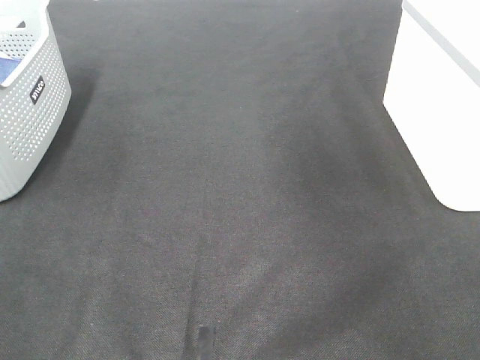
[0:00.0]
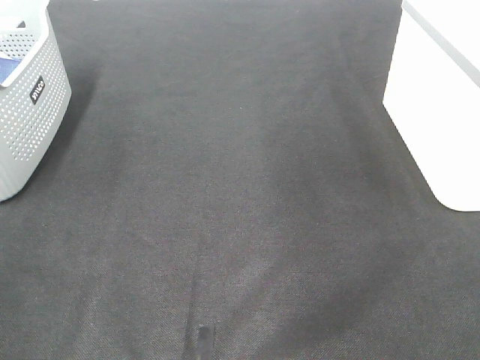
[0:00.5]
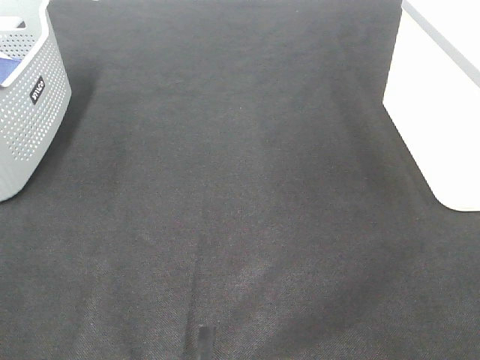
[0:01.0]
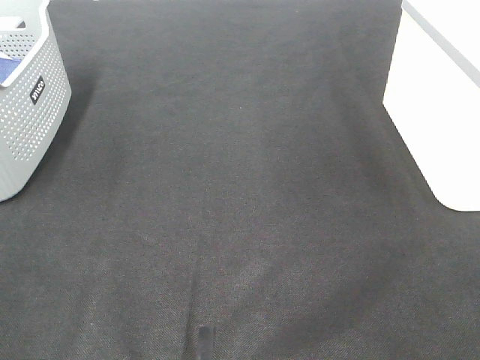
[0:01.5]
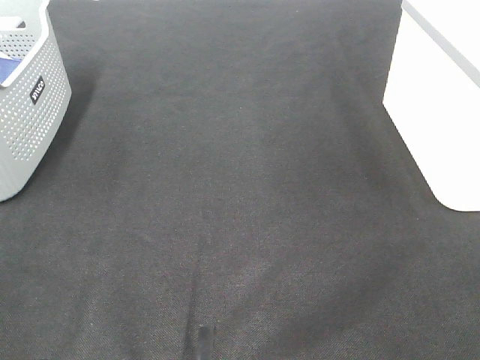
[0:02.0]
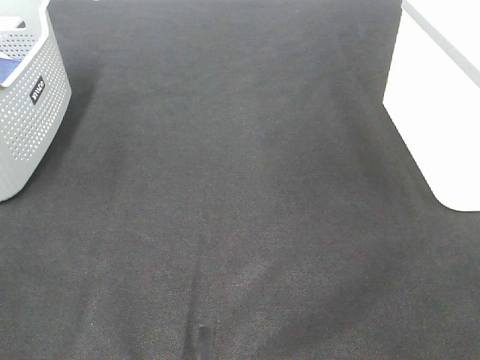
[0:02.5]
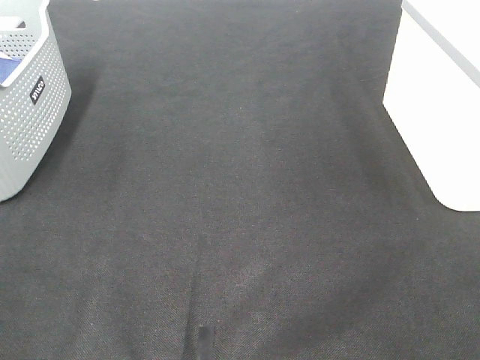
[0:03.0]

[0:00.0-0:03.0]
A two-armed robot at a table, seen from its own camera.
0:01.5 to 0:03.0: Neither gripper changes place.

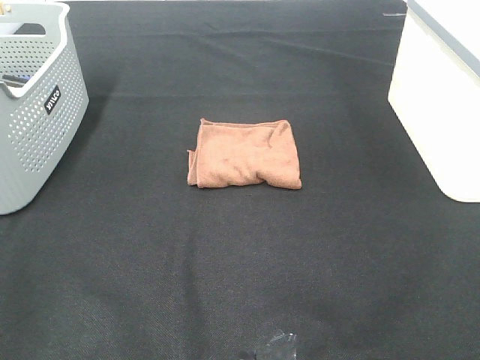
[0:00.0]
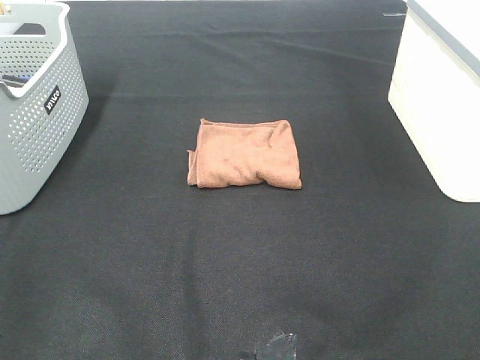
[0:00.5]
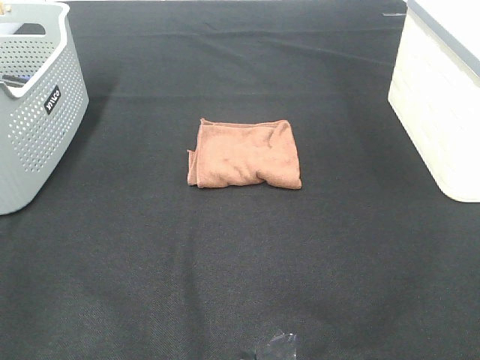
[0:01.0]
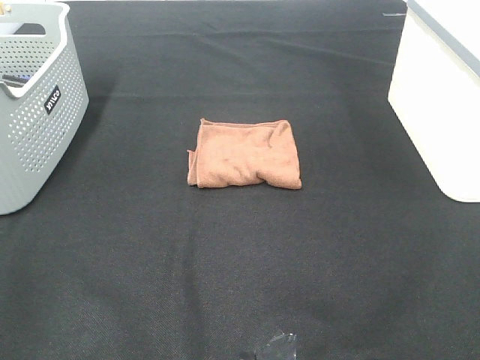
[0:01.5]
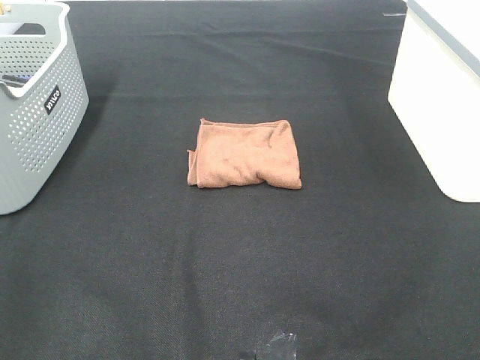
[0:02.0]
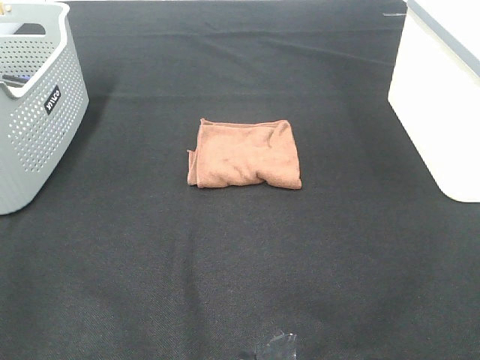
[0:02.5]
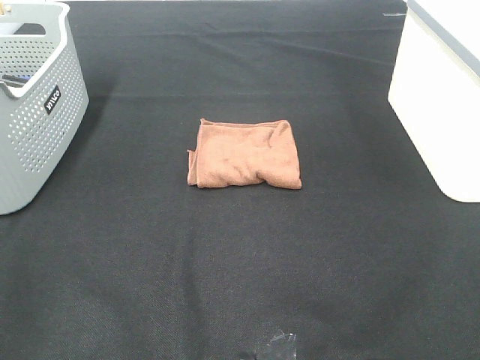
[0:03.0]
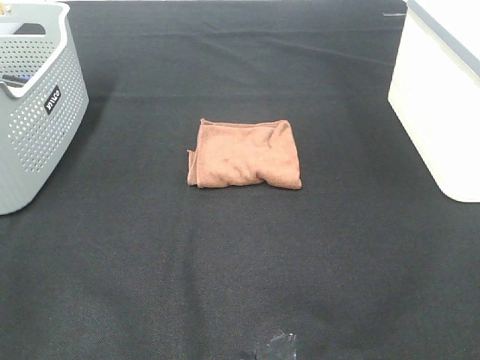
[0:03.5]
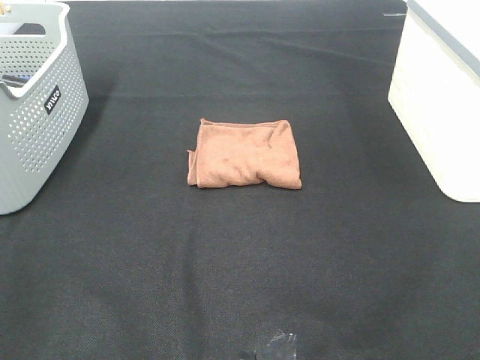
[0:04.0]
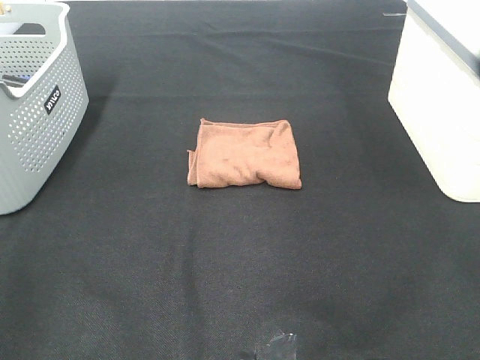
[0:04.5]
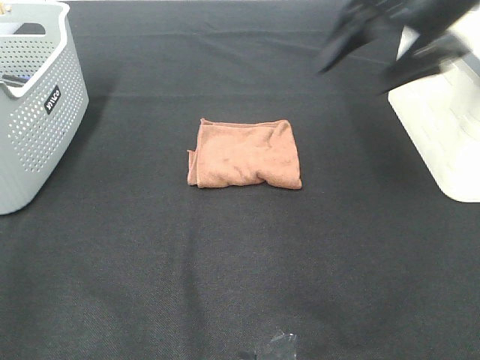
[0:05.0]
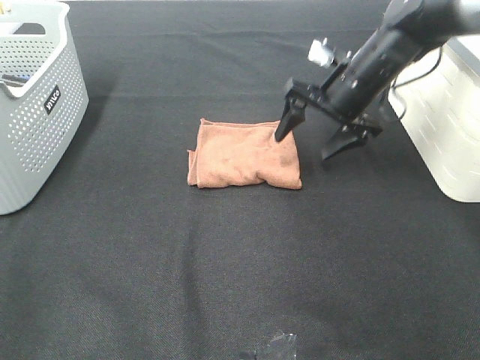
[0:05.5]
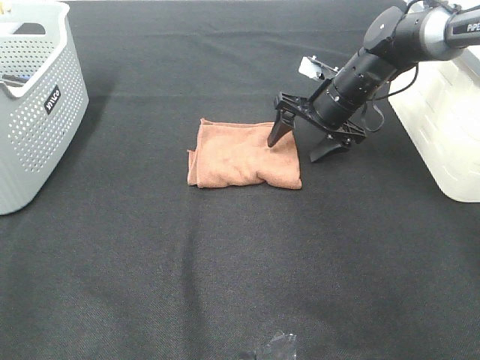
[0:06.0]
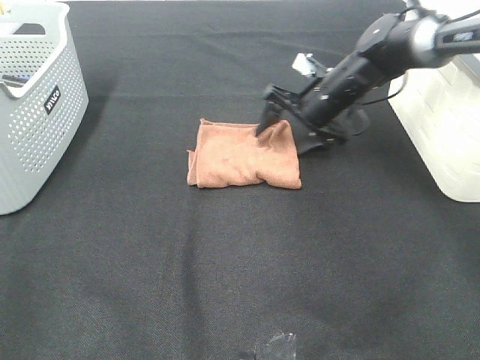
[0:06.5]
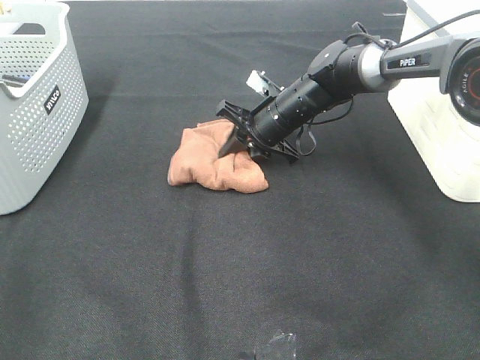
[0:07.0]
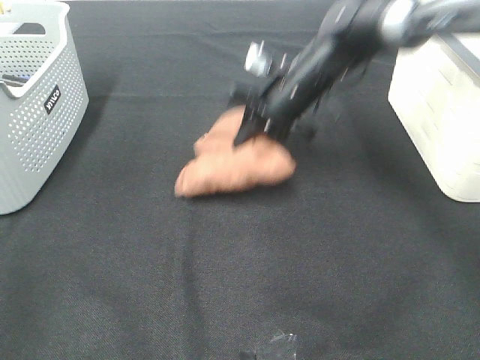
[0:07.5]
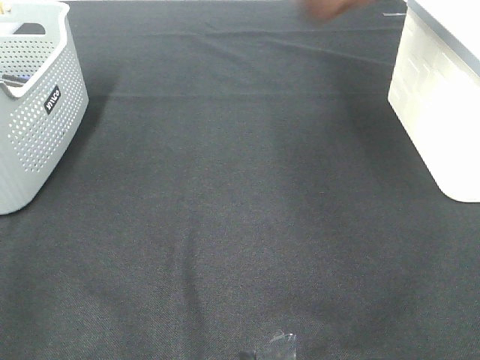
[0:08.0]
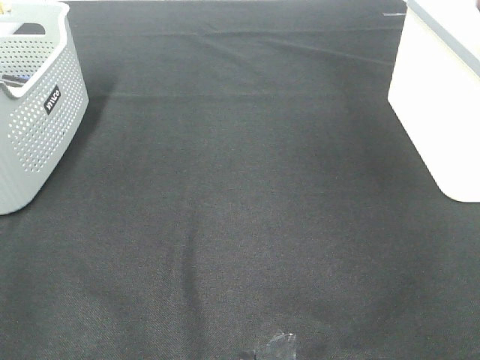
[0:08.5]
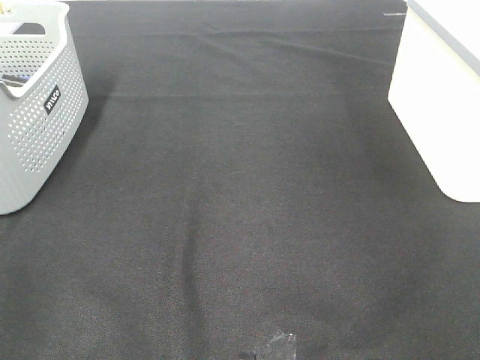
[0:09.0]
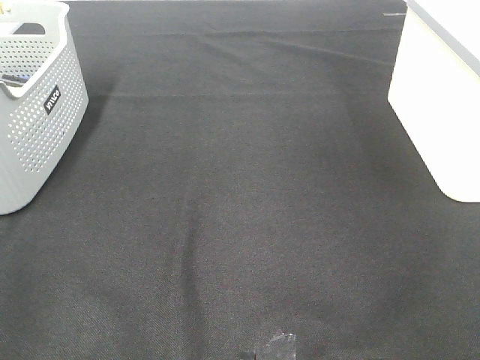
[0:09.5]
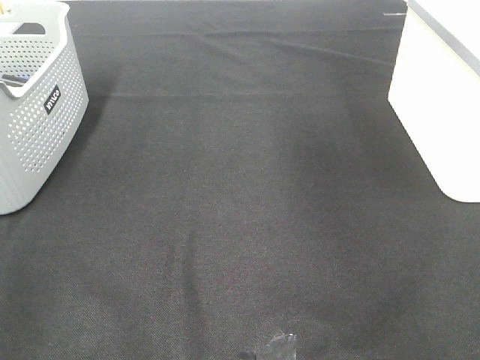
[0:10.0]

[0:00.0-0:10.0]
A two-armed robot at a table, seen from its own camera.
Step, 0:00.0 to 0:07.0: Right hand: grab the folded brown towel.
Step, 0:07.5 to 0:09.0: Right hand: place the brown towel in right basket.
0:00.0 to 0:02.0: Both grippers stay put.
0:04.0 to 0:06.0: The right gripper moves forward and downward, some 50 cm.
0:06.0 to 0:08.0: The right gripper moves upward and to the right, some 30 cm, and closes its fingers.
0:08.0 to 0:10.0: The right gripper reaches about 20 cm to the right, then returns, and opens its fingers.

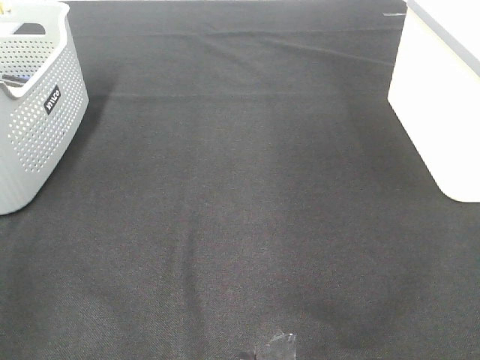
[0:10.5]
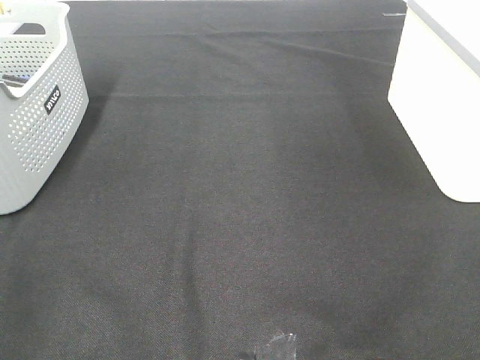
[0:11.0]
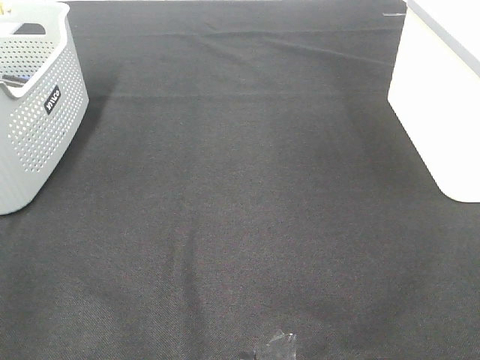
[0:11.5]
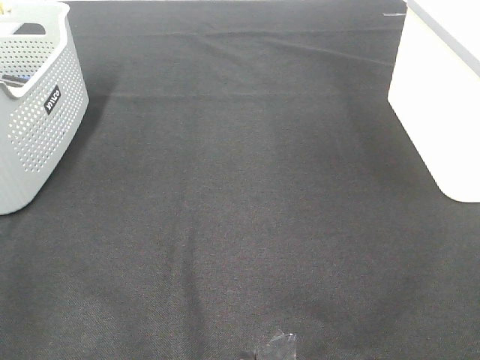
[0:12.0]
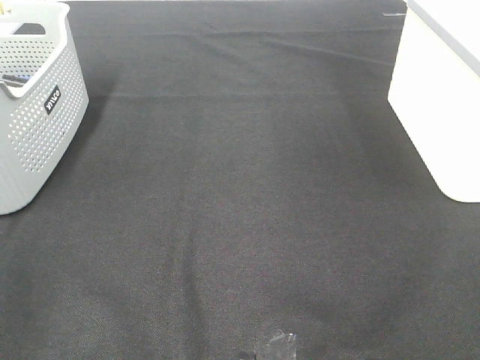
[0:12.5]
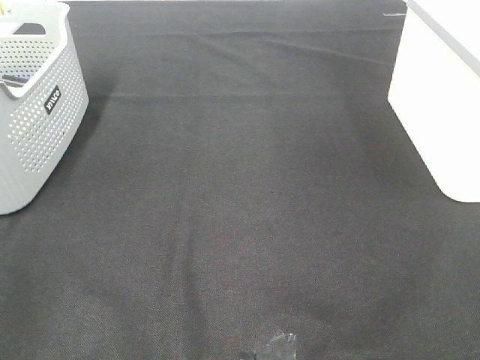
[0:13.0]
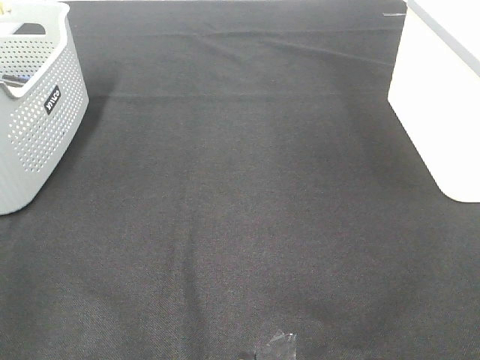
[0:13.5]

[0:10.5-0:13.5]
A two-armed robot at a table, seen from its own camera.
0:12.0 to 0:13.5: The two grippers keep their place.

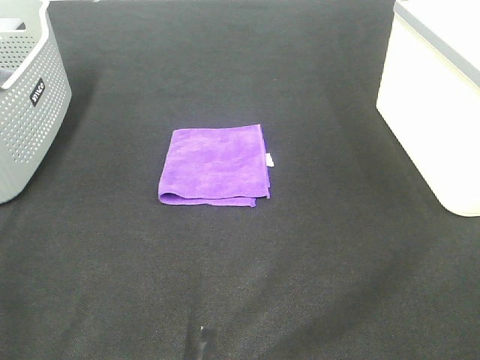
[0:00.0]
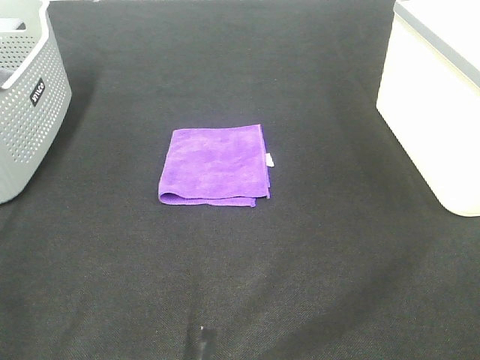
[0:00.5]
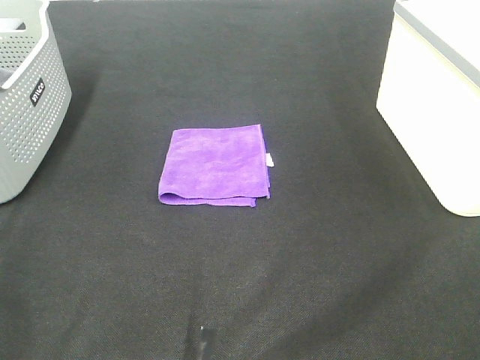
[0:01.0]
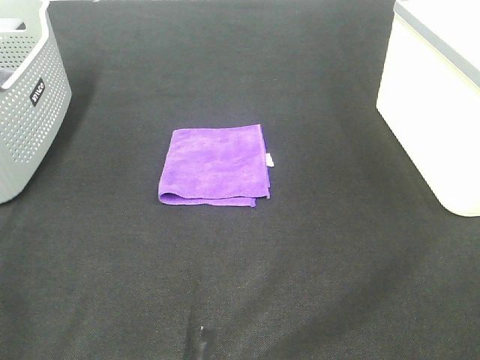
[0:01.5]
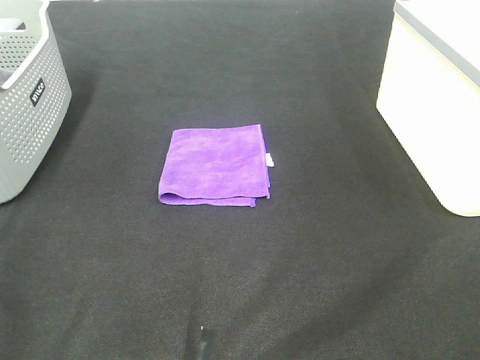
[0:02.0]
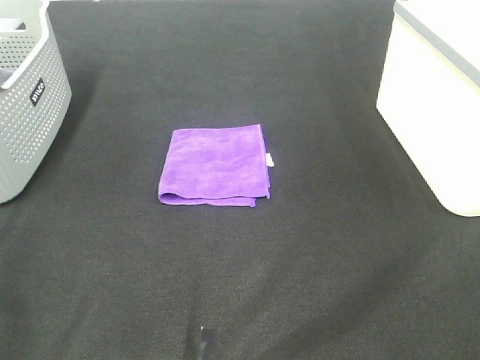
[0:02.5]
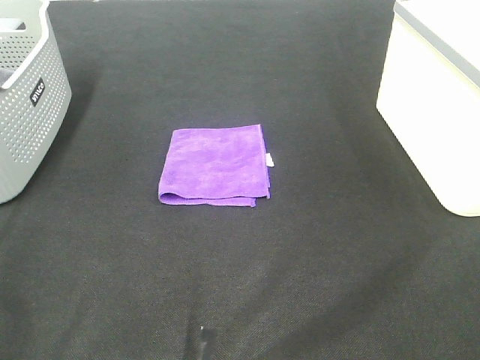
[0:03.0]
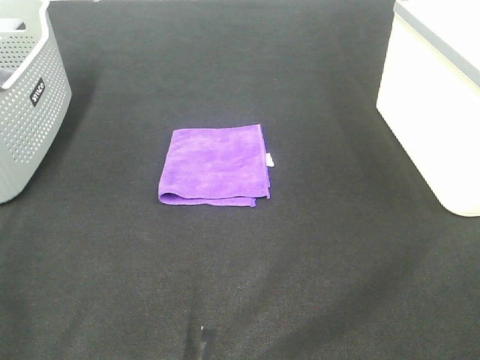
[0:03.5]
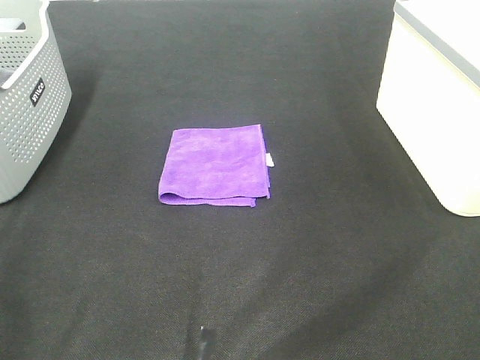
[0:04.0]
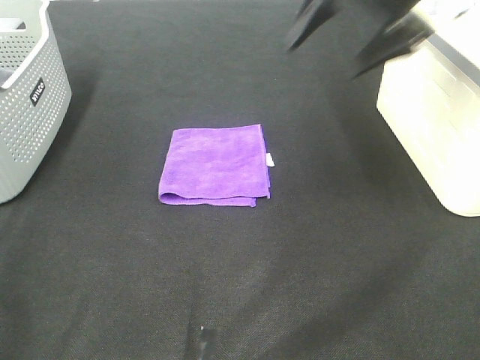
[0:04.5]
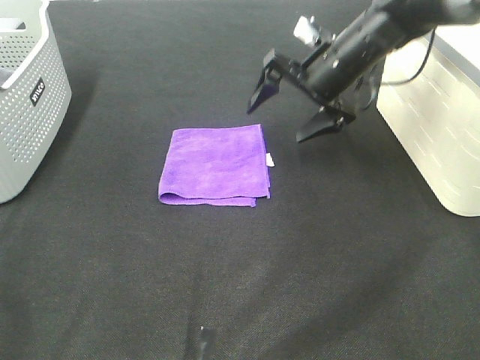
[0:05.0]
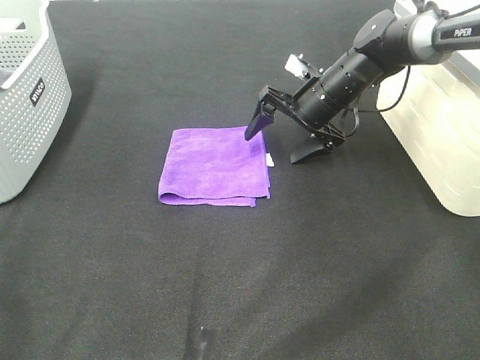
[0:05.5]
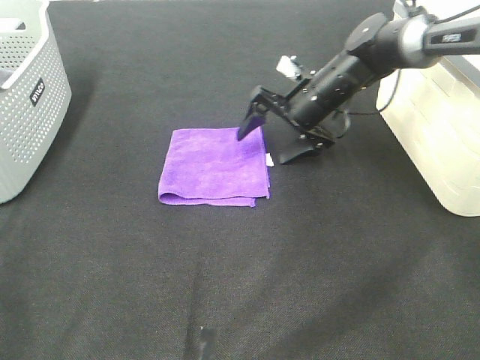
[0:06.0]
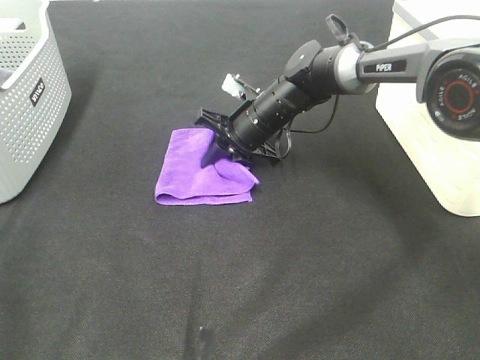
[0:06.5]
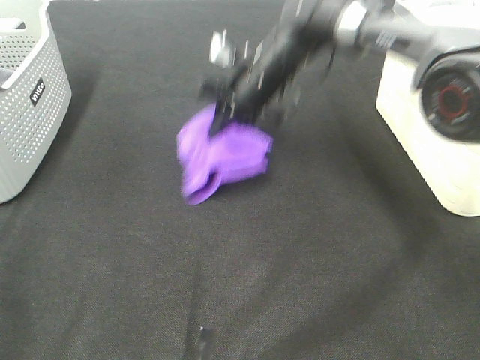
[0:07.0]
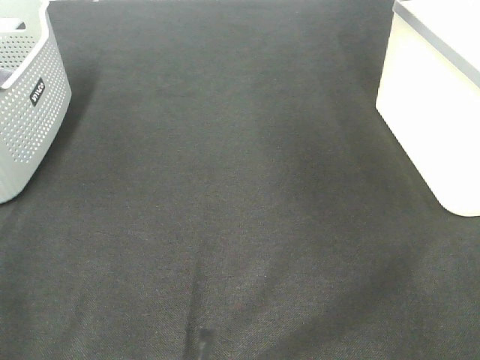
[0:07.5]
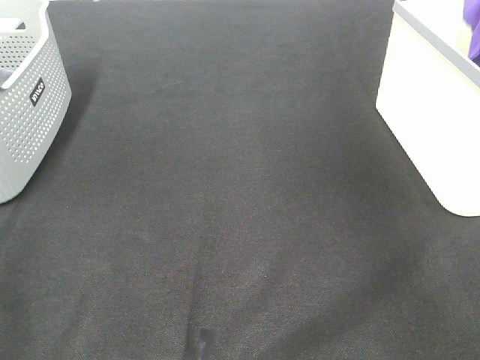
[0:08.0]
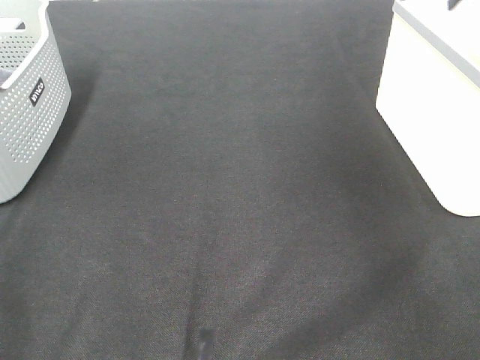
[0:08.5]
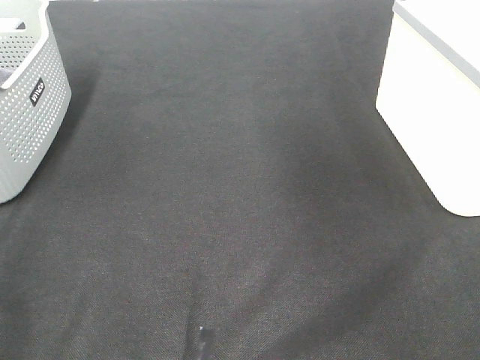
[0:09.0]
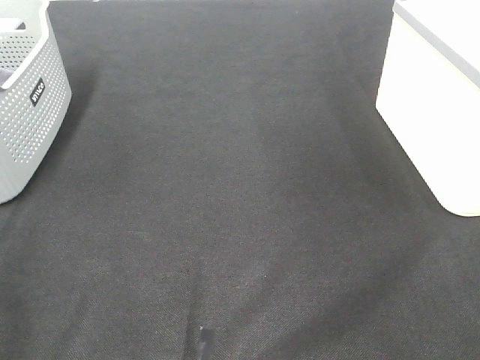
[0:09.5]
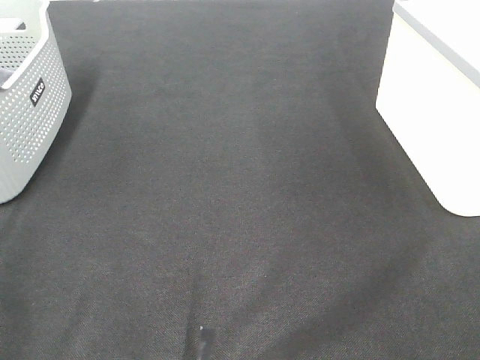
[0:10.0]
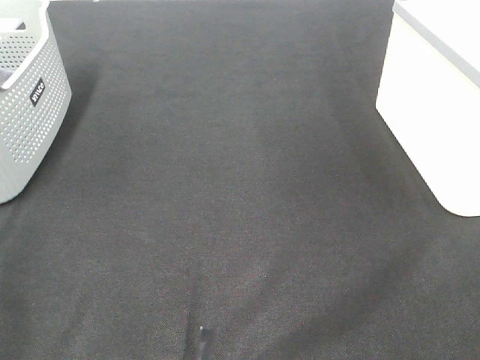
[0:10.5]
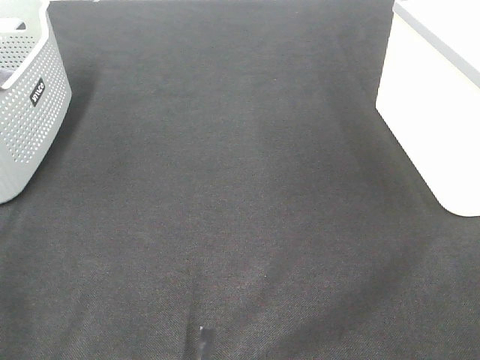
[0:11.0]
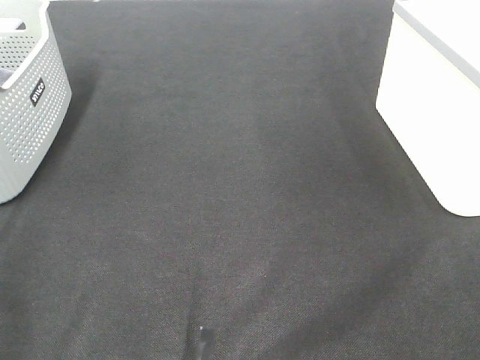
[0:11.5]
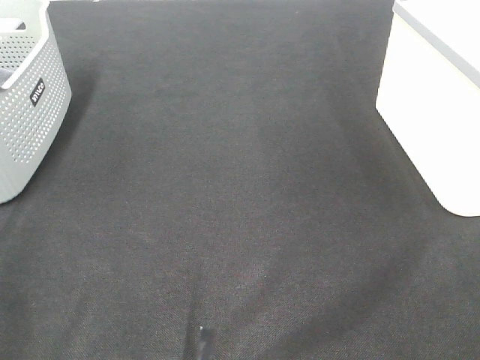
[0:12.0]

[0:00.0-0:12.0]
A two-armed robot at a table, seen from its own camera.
Step, 0:00.0 to 0:06.5: Right hand: grab the folded purple towel.
Step, 0:07.0 to 0:08.0: Right hand: place the purple towel in right basket.
0:00.0 to 0:02.0: The two grippers keep their place.
0:04.0 to 0:06.0: The right gripper moves downward, forward and to the left, roughly 50 cm.
0:06.0 to 0:08.0: The right gripper moves to the right and upward, roughly 35 cm, and closes.
